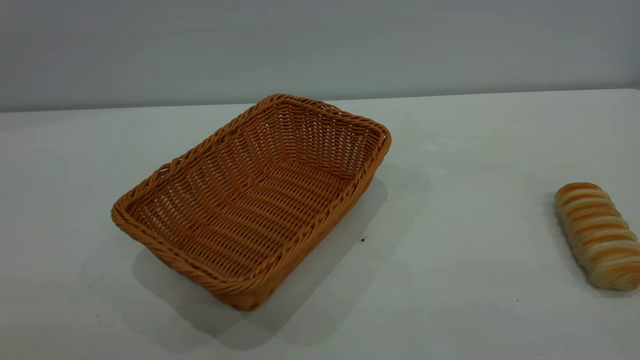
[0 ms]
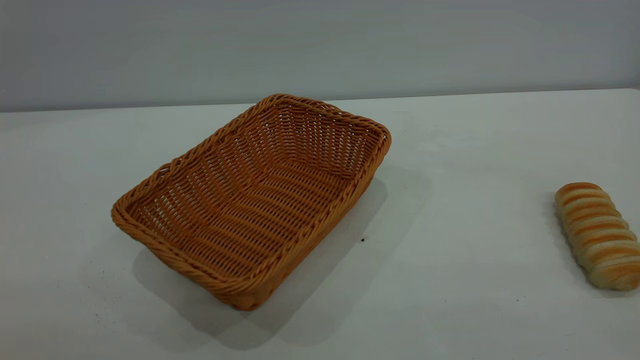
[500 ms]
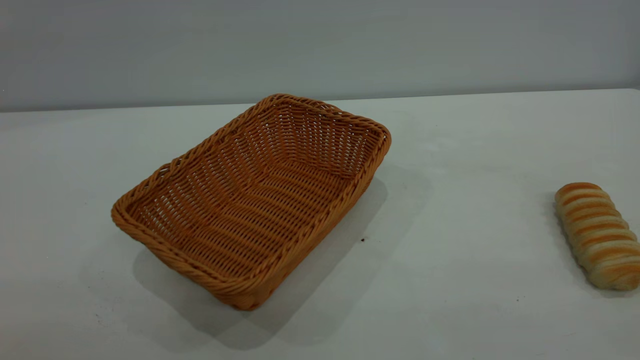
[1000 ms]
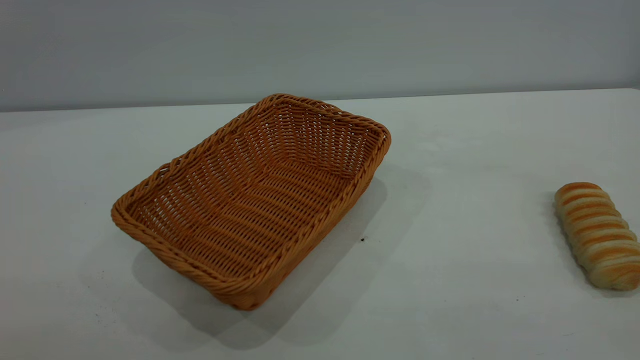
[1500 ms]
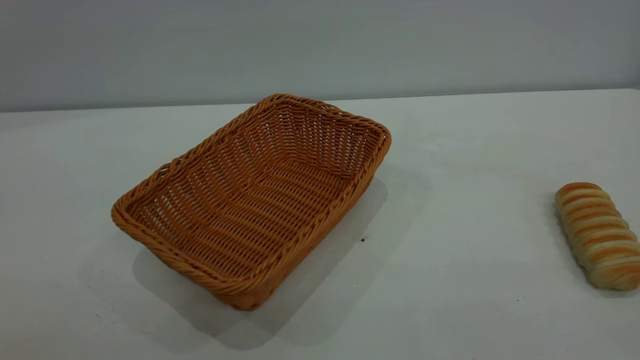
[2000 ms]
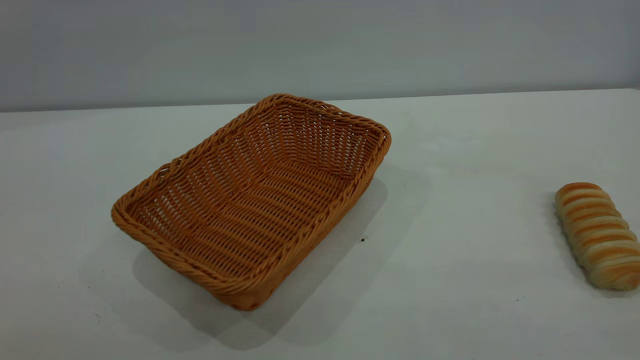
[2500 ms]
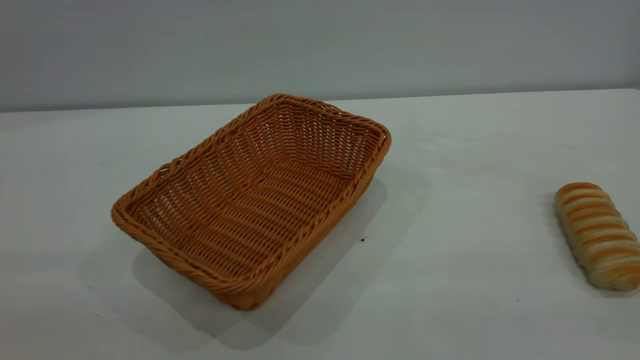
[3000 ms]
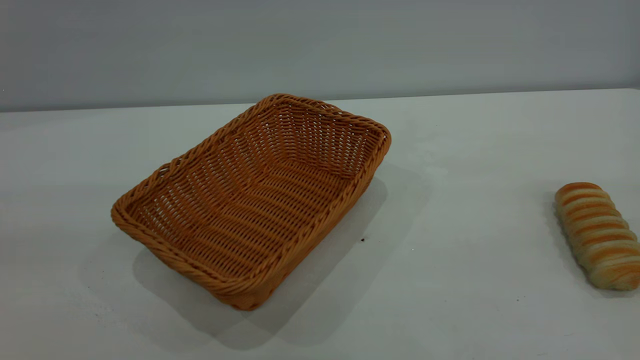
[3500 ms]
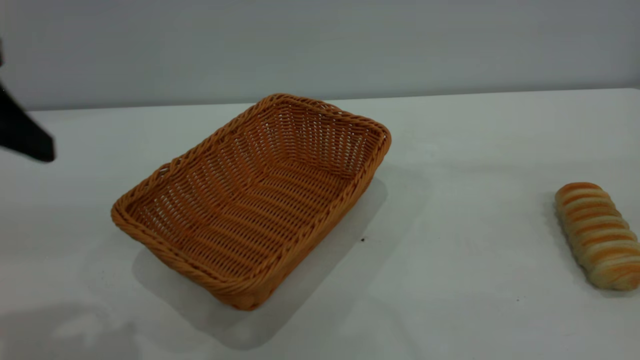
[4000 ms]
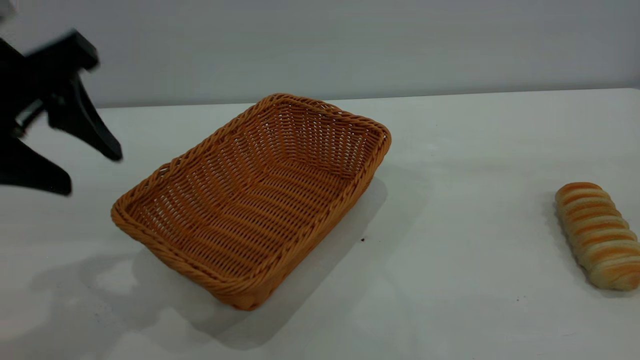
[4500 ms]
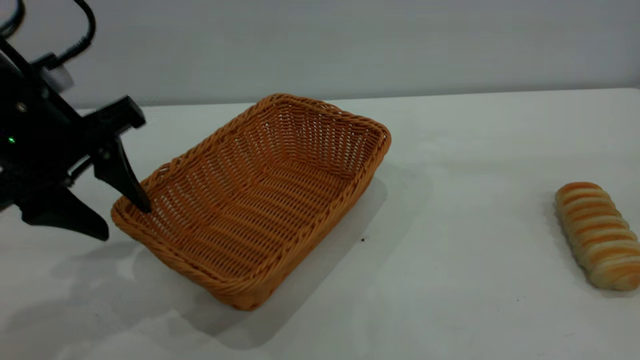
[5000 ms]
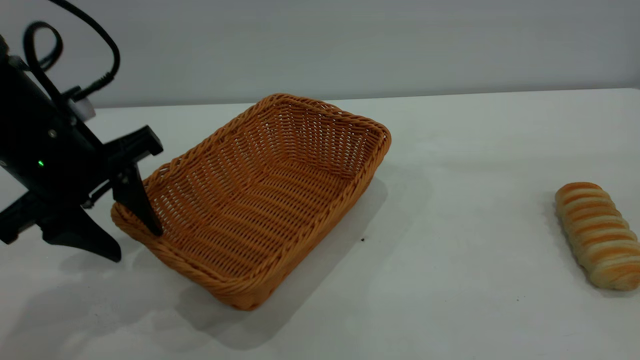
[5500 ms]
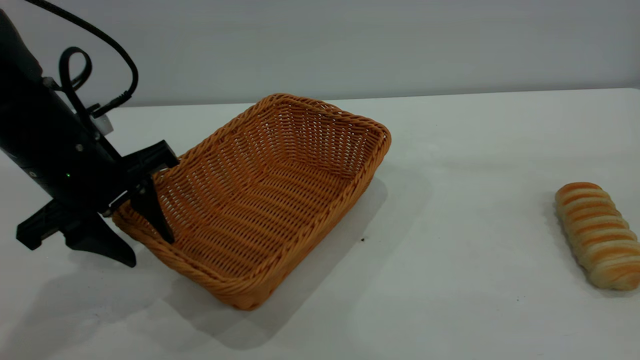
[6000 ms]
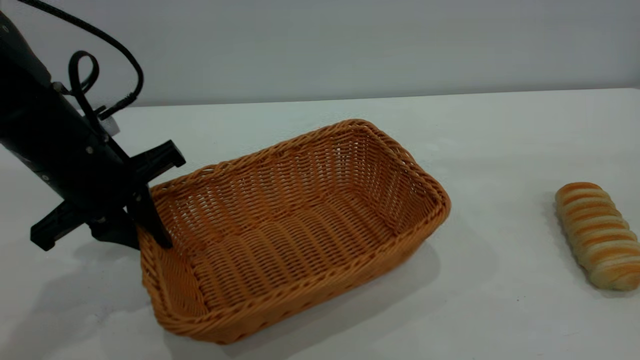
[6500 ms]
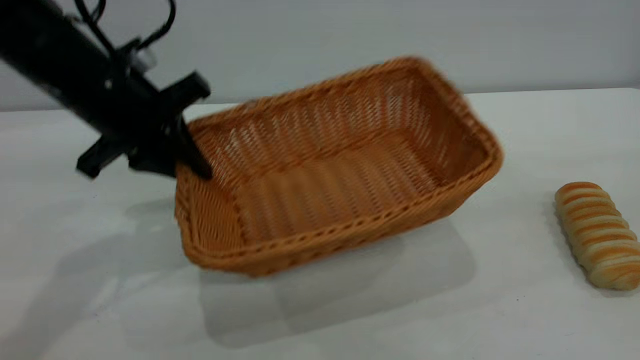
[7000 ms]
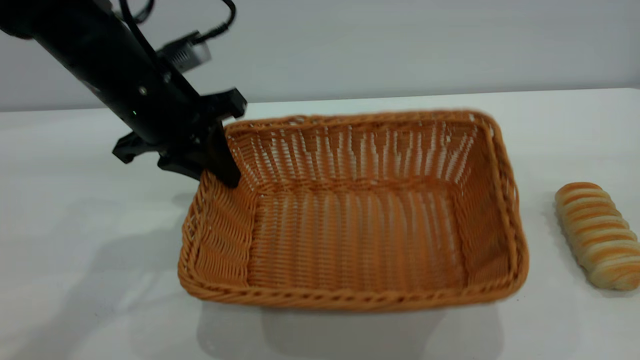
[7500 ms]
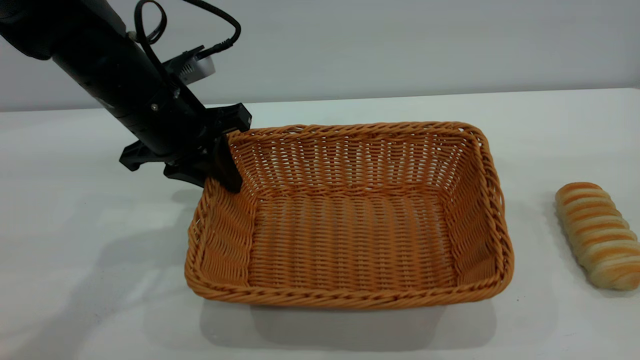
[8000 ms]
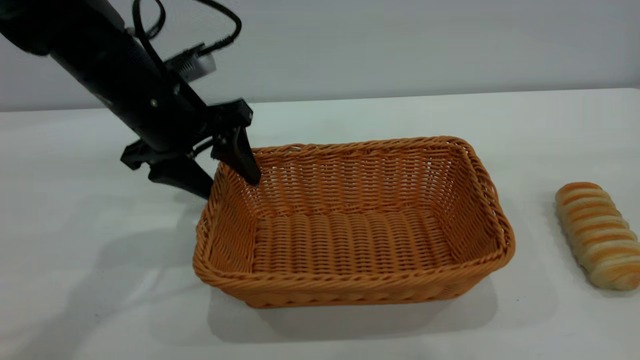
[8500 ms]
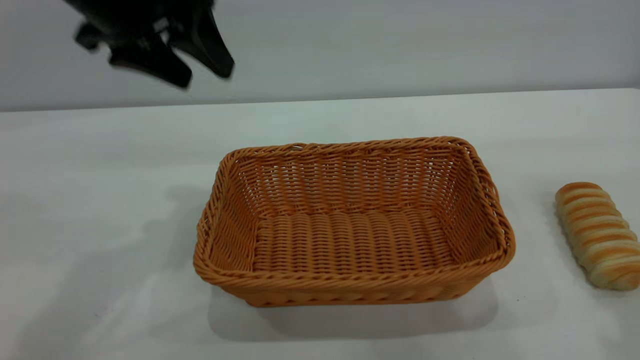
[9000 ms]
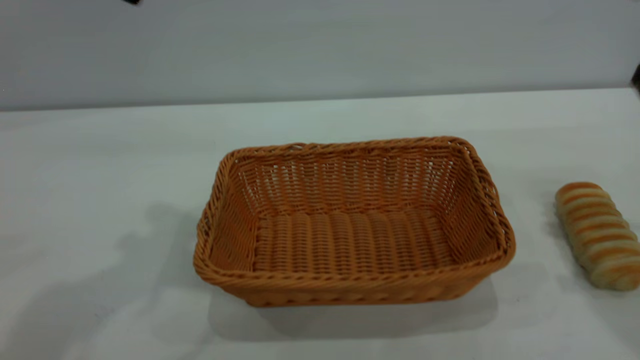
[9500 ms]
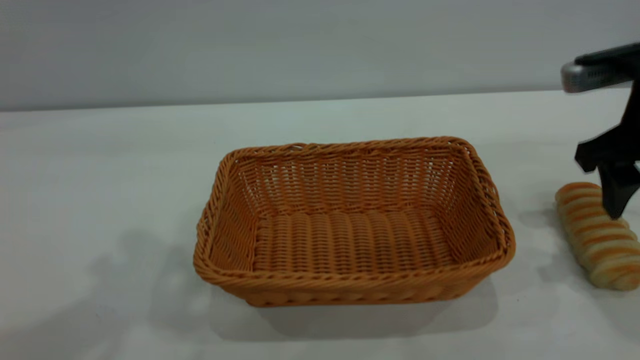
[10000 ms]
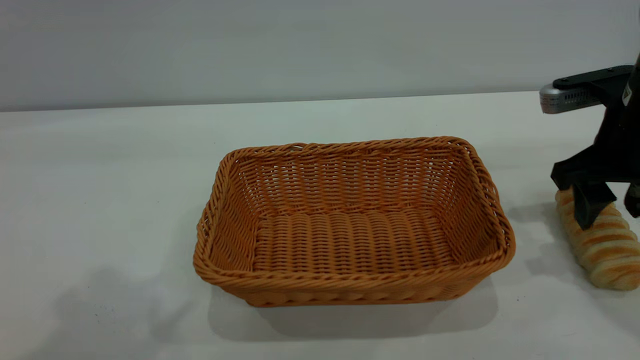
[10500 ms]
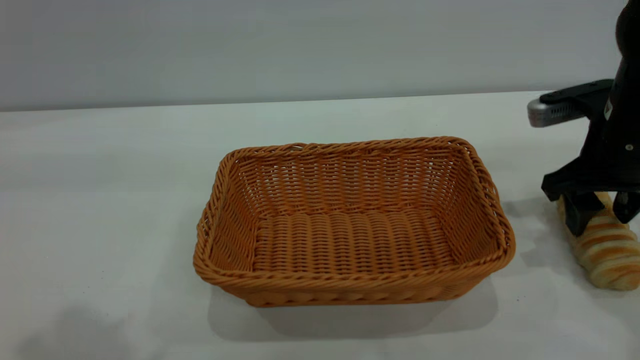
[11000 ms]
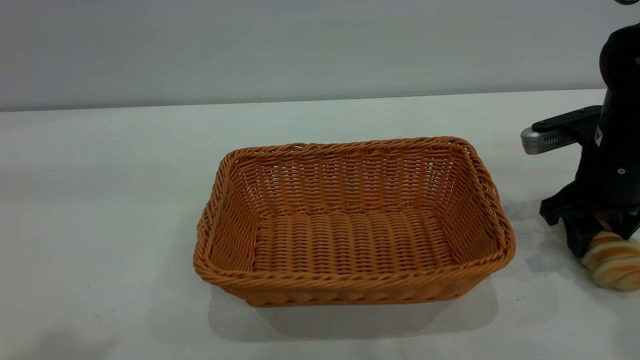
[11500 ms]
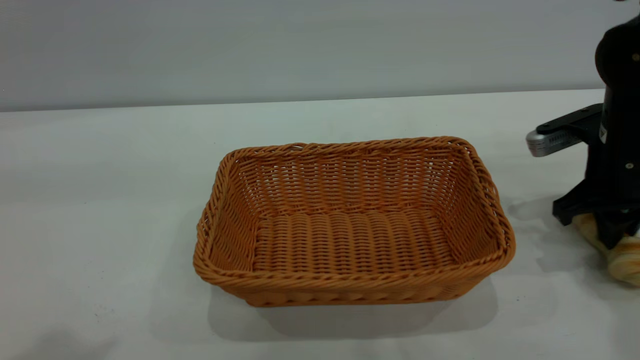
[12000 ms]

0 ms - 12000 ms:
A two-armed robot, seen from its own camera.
Task of the whole recording: One hand grasps the yellow basket and places it in the middle of the table, while the other hand picks up the long bread and puts it into the yellow basket.
Step, 0 ms - 8500 ms: Move the basket to the center of view.
2000 ms - 4000 ms: The left gripper is displaced forward by roughly 20 cm.
4000 ms - 6000 ms: The left gripper heads downward and forward, covering approximately 20 cm.
6000 ms - 8000 ms: The left gripper travels forward and to the right by about 10 cm, and closes up.
8000 ms - 10000 ms: The left gripper goes roughly 30 cm upward and backward, and opens; the right gripper travels forward and downward by some 30 cm, and opens its fingers.
10000 ms - 12000 ms: The right gripper is displaced downward by some 5 cm, and closes up.

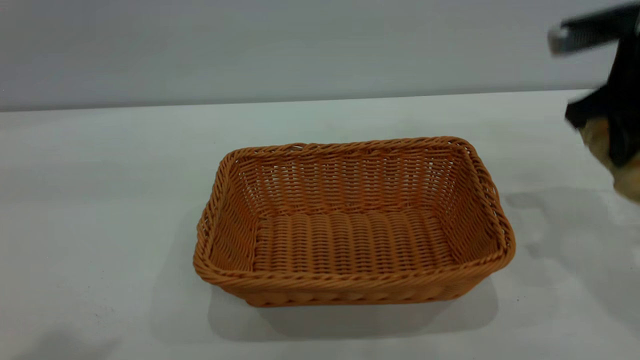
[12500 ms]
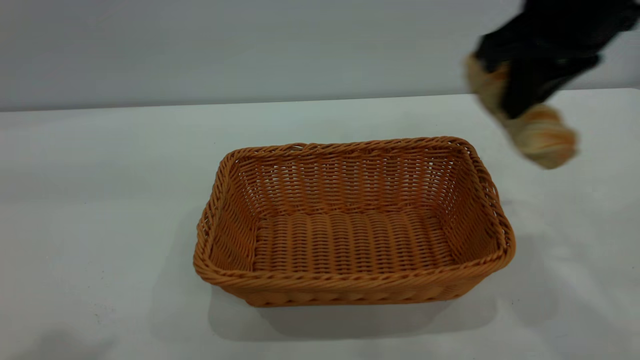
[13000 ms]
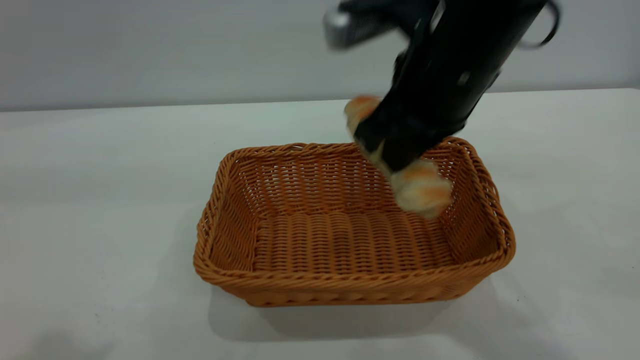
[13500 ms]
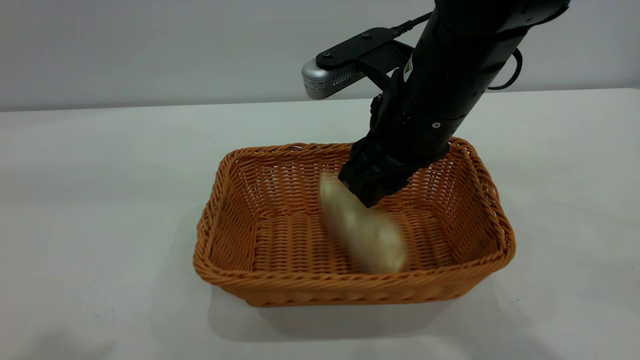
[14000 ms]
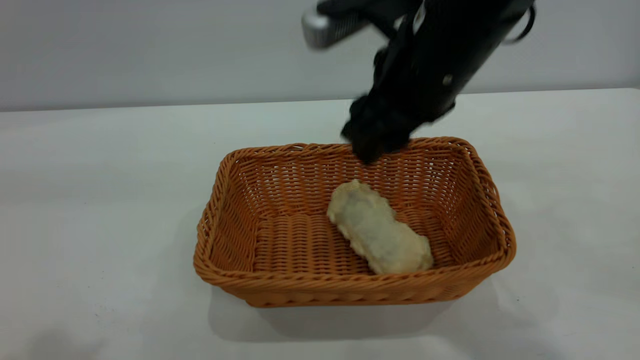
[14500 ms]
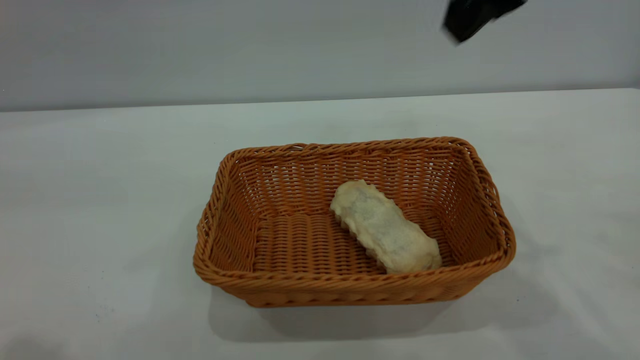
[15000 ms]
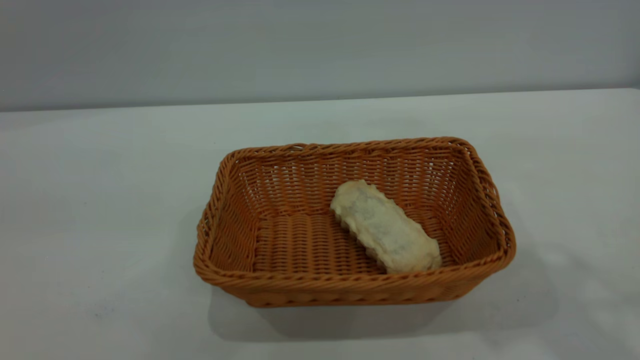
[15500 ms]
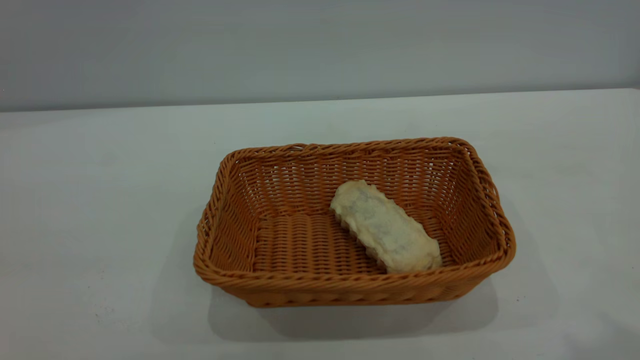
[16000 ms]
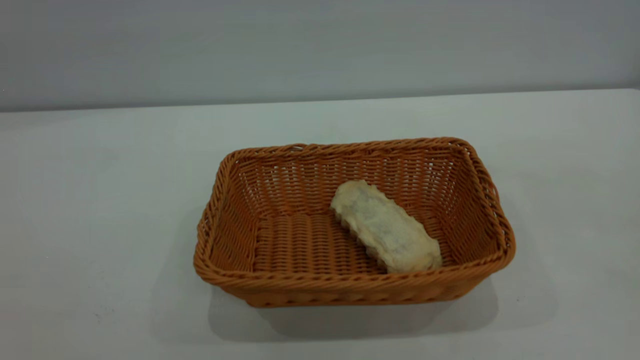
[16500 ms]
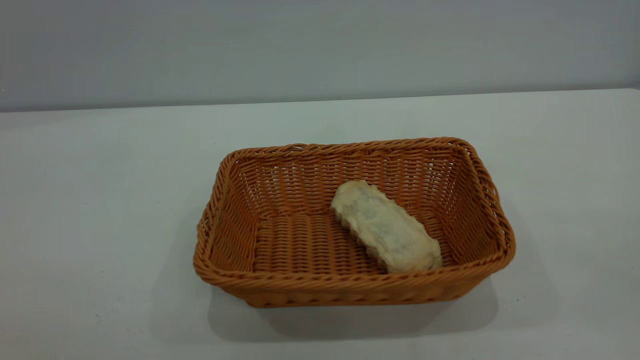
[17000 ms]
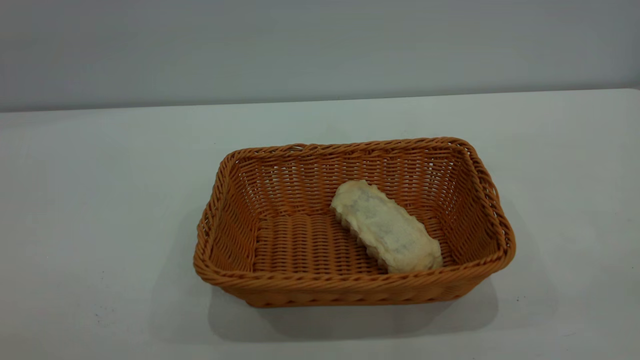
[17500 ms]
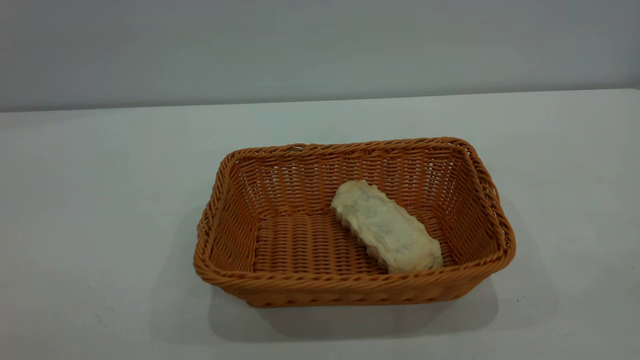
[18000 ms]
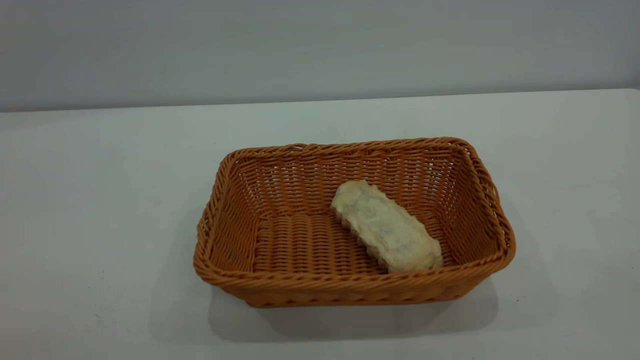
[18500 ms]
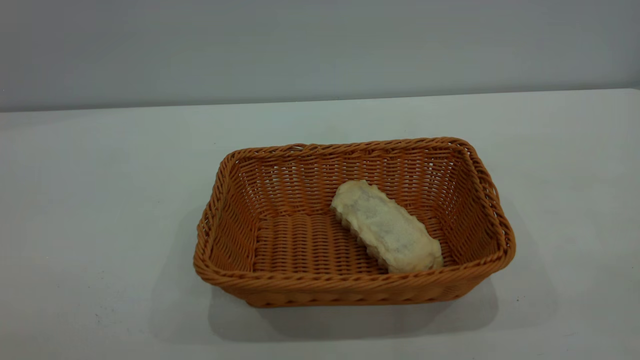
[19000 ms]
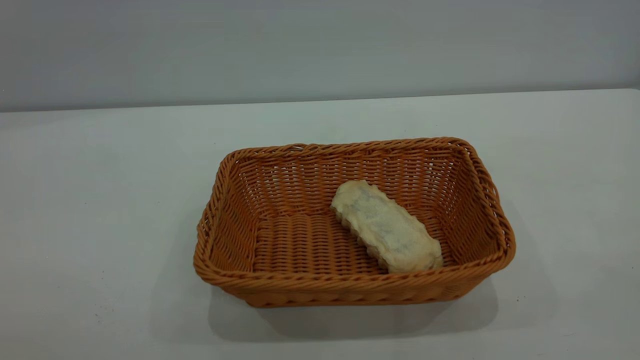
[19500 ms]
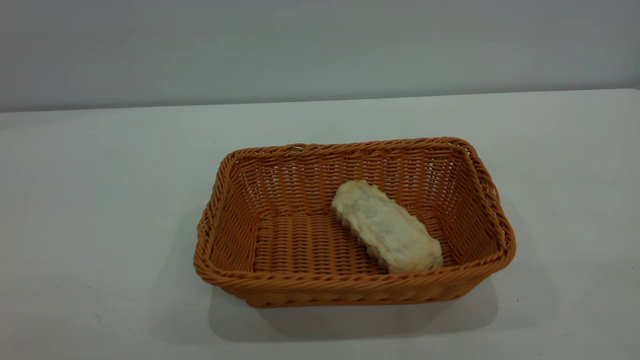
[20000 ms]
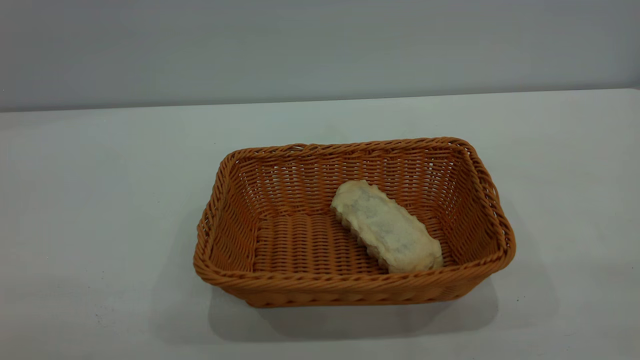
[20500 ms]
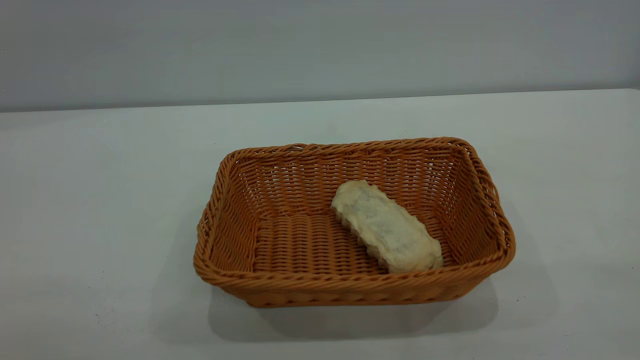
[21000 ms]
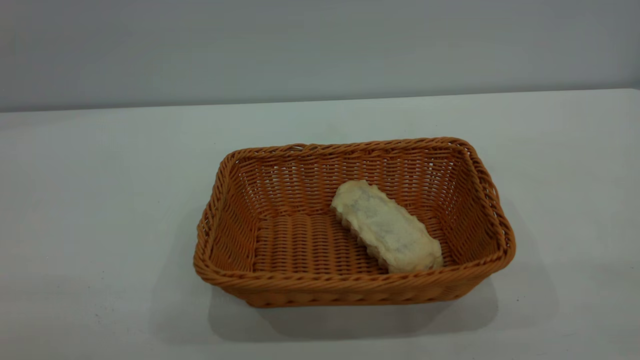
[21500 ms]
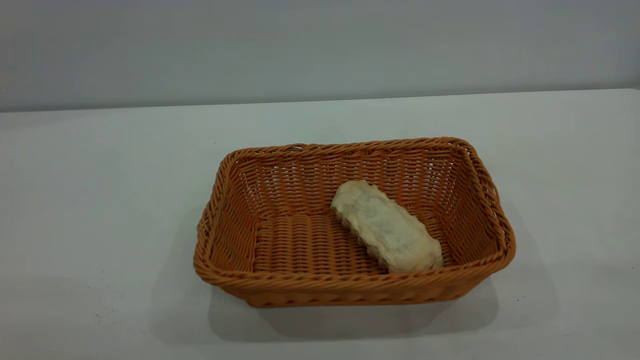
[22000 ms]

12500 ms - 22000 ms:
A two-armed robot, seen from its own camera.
Task of the whole recording: One hand grasps the yellow basket and places it in the middle of the table, while the other hand picks up the long bread and puts it into the yellow basket.
Step, 12500 ms - 14500 ms: place the bread into the basket.
12500 ms - 14500 ms: The right gripper shifts roughly 20 cm to the left, and opens up.
14500 ms - 16500 ms: The right gripper moves backward, upward and to the right, some 40 cm. Meanwhile the left gripper goes roughly 20 cm backward.
